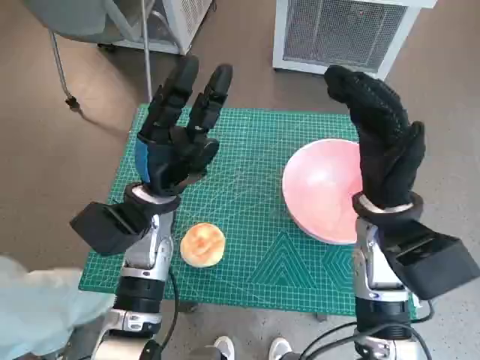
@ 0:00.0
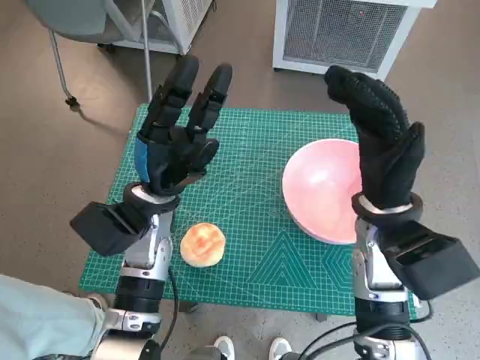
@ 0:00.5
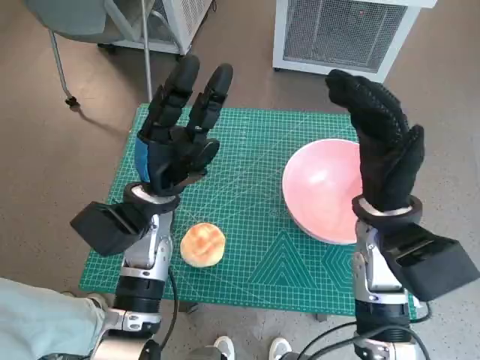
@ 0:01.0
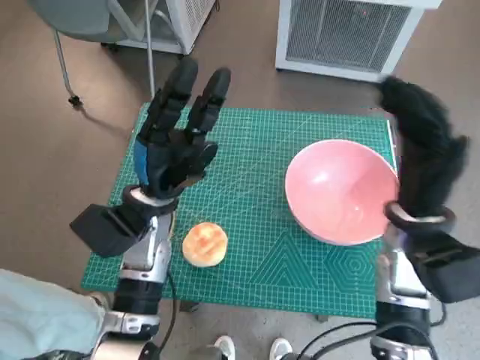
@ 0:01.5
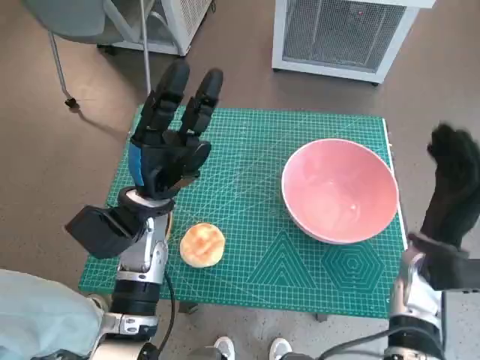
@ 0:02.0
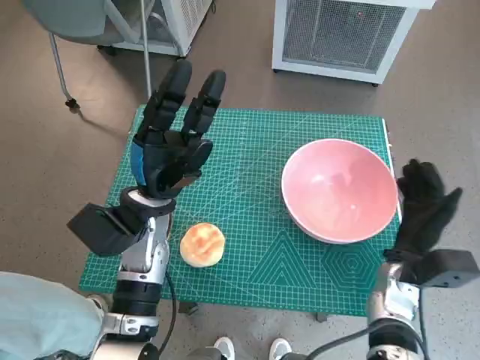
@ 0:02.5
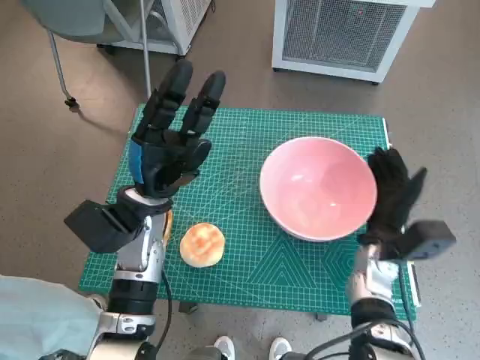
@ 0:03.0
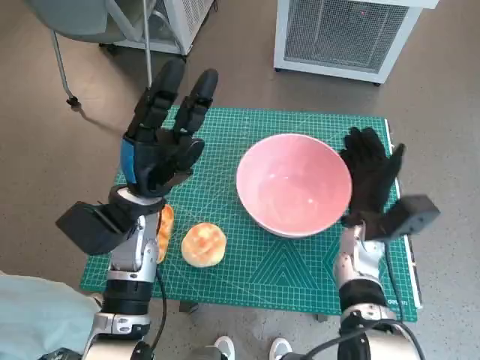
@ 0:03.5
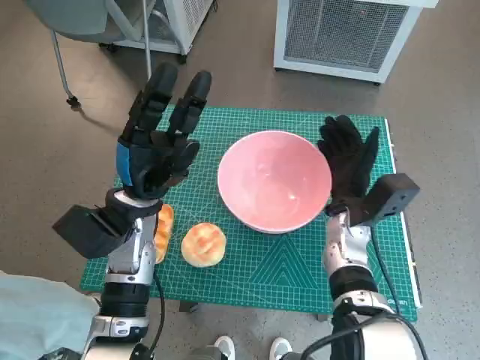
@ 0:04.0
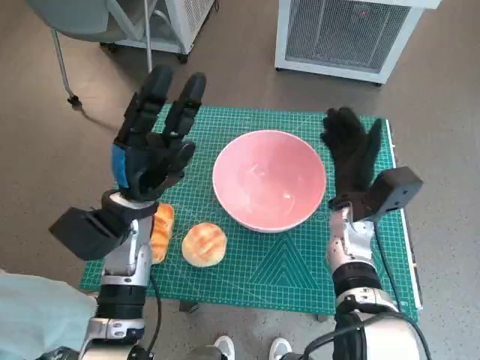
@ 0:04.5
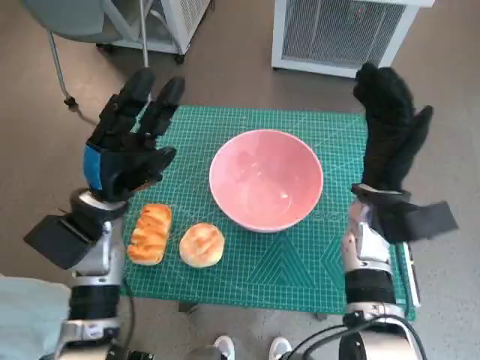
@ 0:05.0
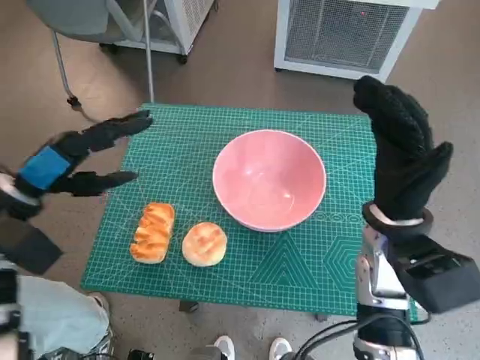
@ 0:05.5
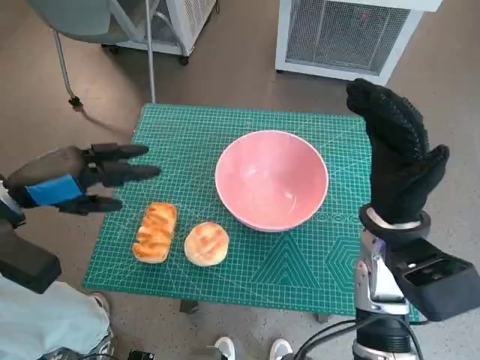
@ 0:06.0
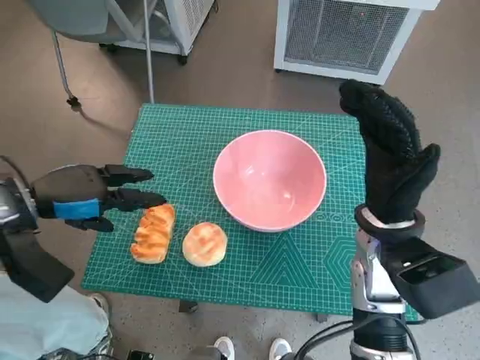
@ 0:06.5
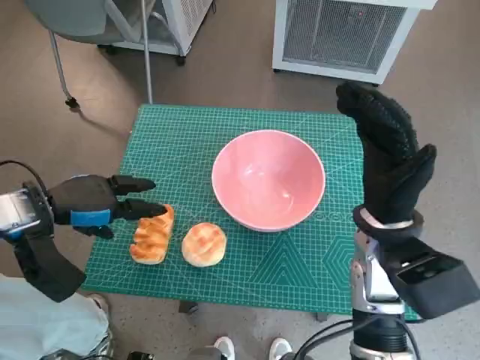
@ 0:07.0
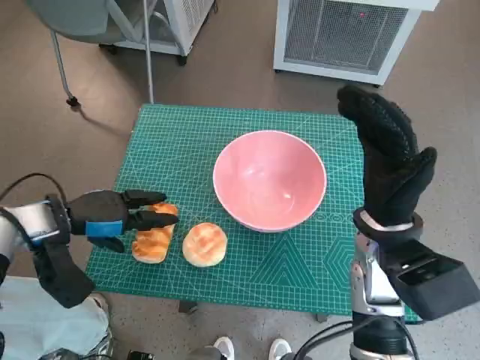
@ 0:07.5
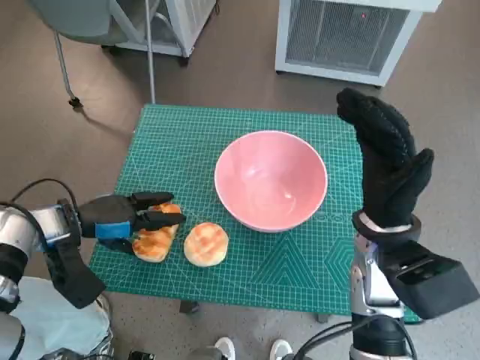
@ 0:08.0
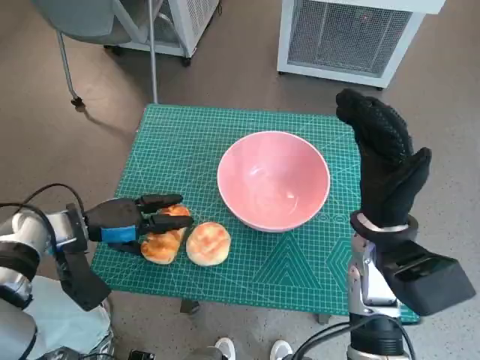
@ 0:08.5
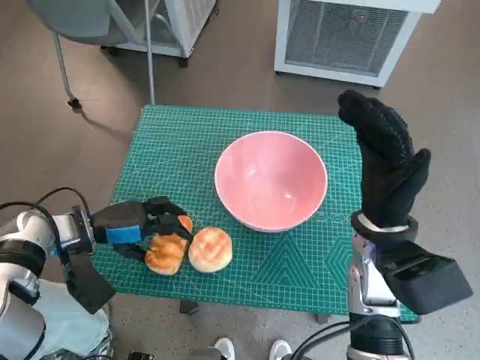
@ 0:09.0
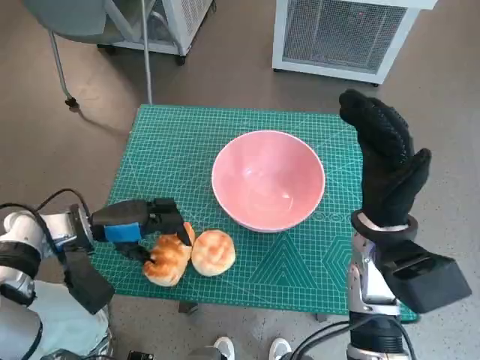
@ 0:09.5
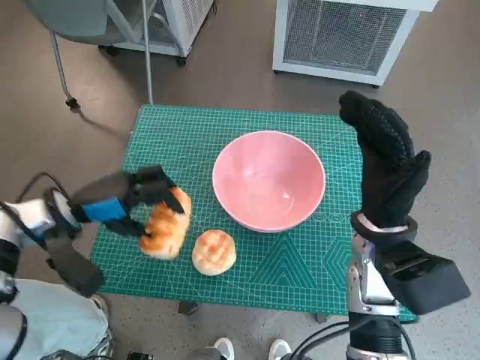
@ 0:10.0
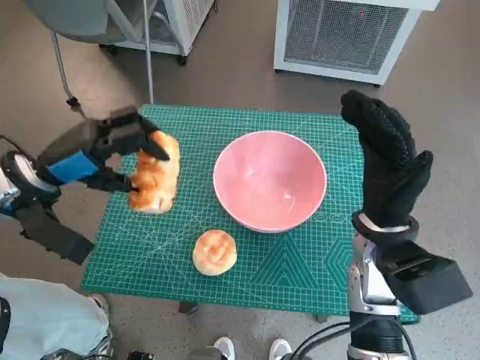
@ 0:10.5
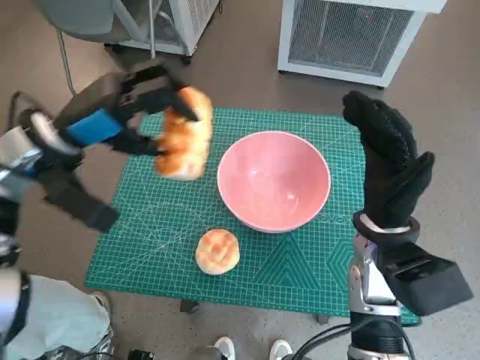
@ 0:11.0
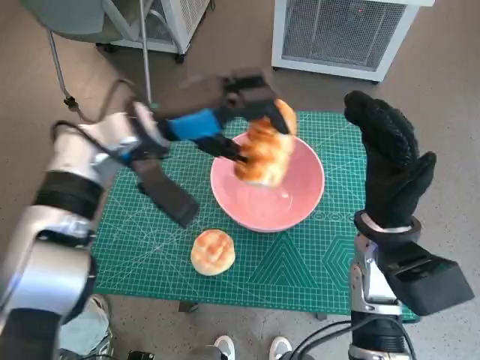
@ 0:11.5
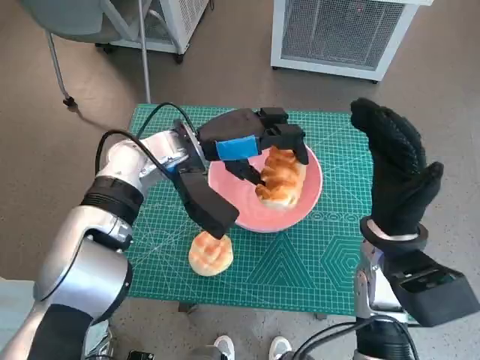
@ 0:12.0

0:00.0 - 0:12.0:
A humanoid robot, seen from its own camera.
Task of the whole recording: Push the bowl to the center of the table and put the bread into the bowl.
Step, 0:00.0 - 0:04.5: Move the pink bowl to the center of table with right hand.
Step, 0:05.0 - 0:08.0: Grasp the long bread with left hand.
0:02.0 - 0:04.0: The right hand goes some 10 cm to the left and forward.
0:04.0 - 0:06.0: The right hand goes some 10 cm upward and backward, while the left hand moves to the left and upward, some 15 cm.
0:06.0 - 0:08.0: The left hand goes about 10 cm downward.
0:10.0 - 0:12.0: The left hand heads to the right and forward, covering roughly 20 cm.

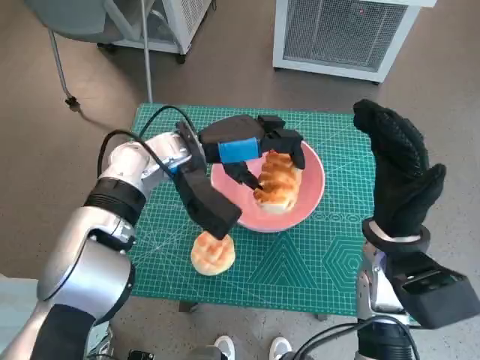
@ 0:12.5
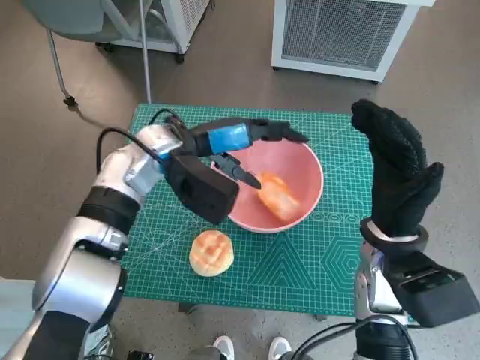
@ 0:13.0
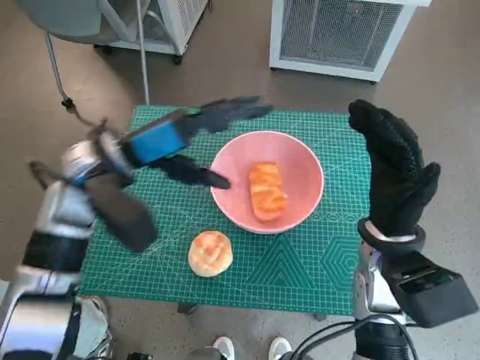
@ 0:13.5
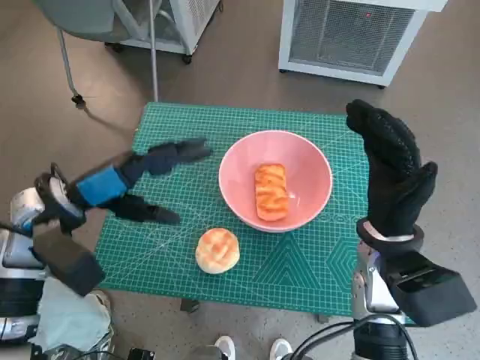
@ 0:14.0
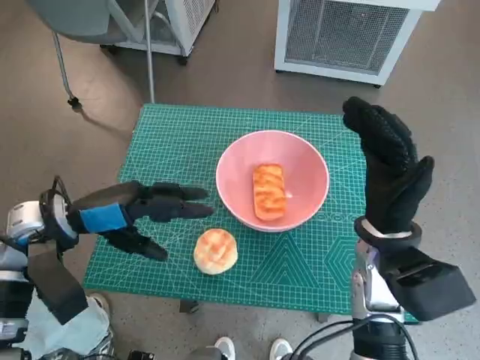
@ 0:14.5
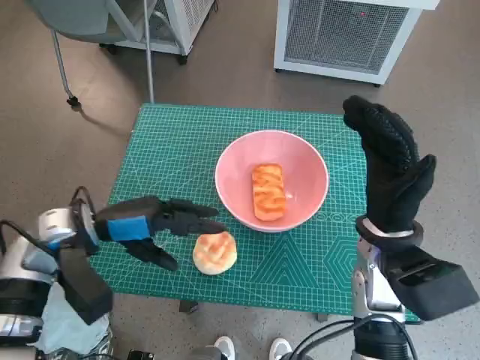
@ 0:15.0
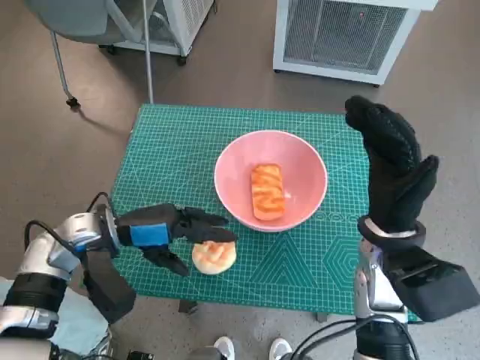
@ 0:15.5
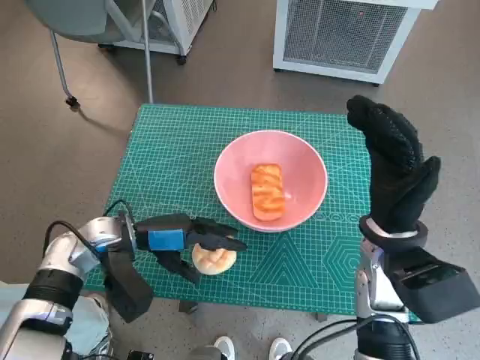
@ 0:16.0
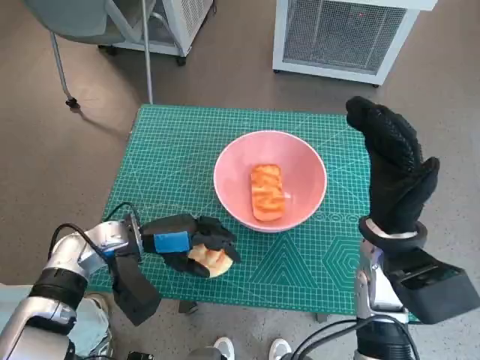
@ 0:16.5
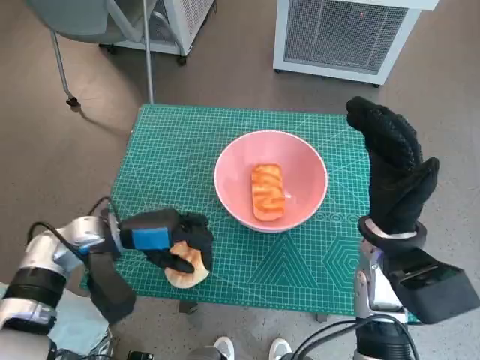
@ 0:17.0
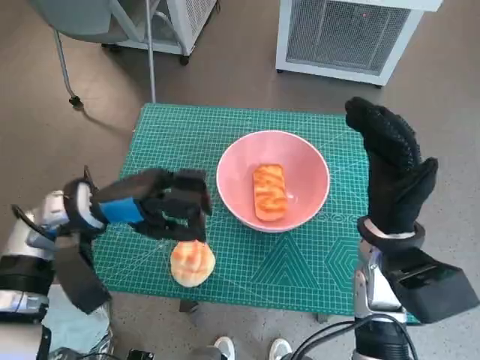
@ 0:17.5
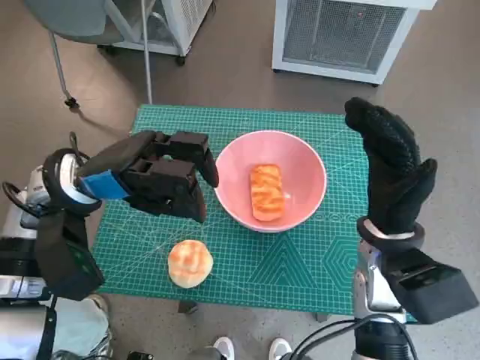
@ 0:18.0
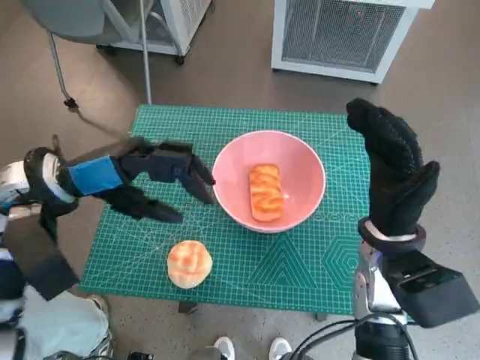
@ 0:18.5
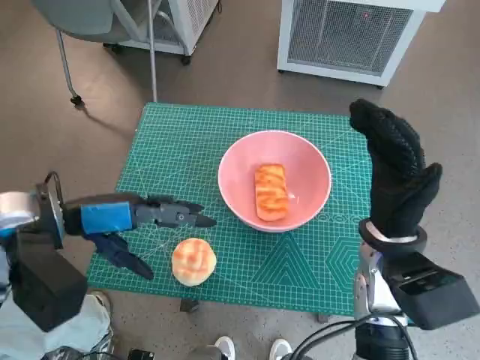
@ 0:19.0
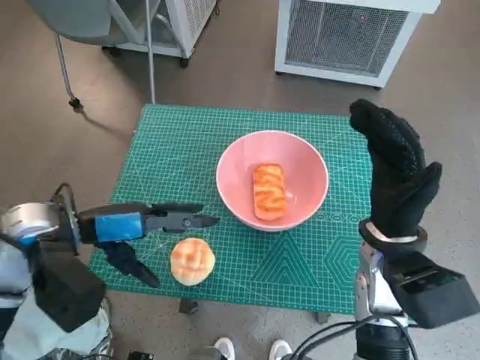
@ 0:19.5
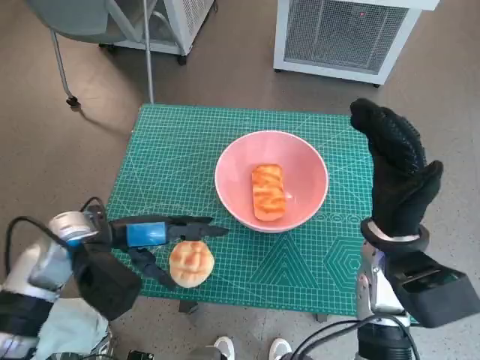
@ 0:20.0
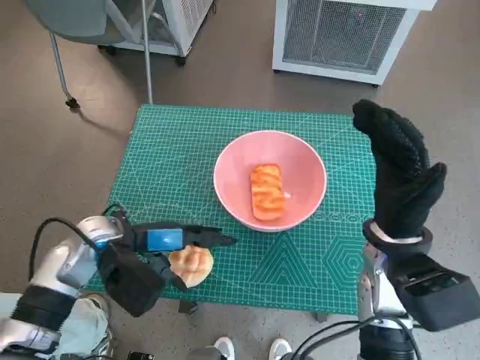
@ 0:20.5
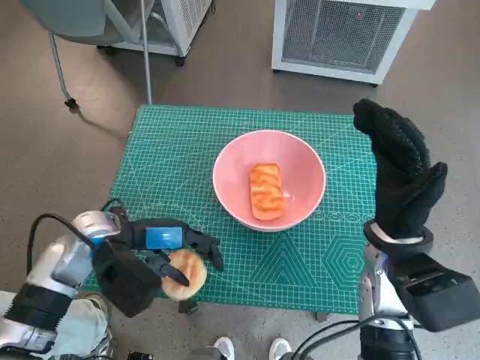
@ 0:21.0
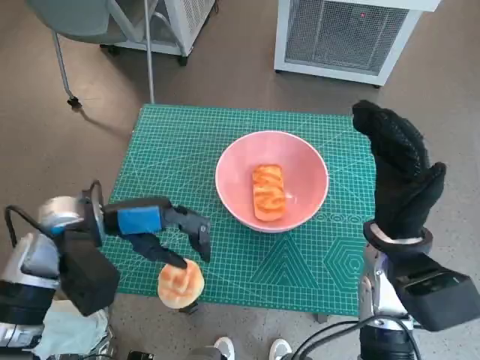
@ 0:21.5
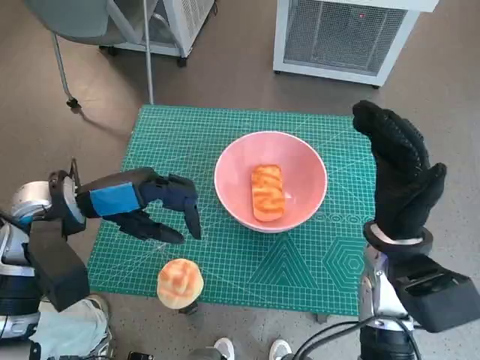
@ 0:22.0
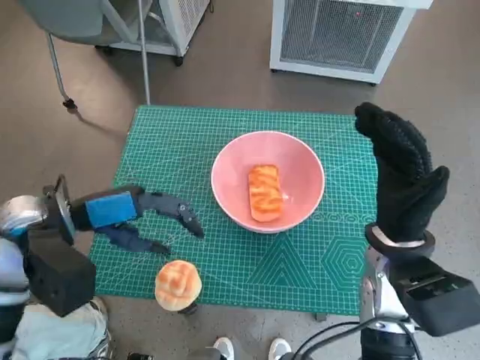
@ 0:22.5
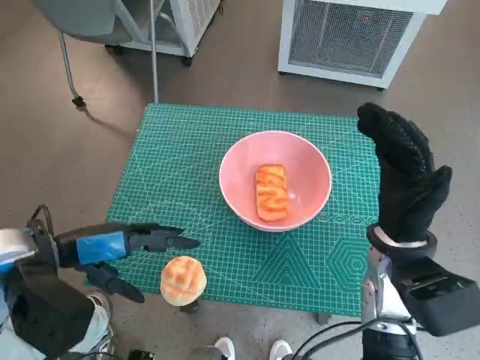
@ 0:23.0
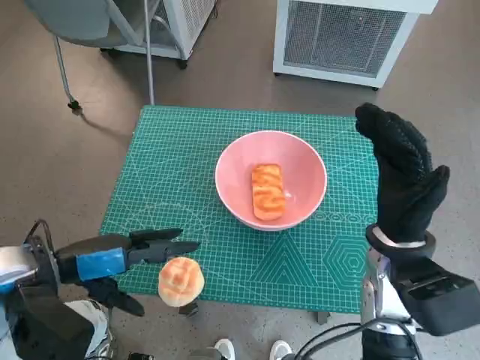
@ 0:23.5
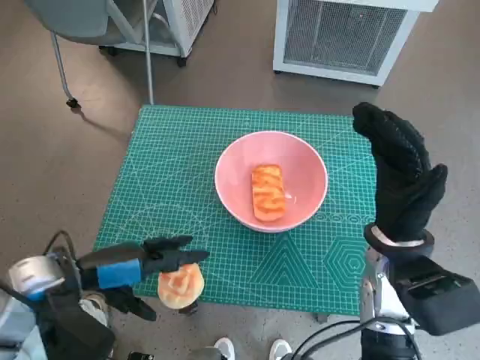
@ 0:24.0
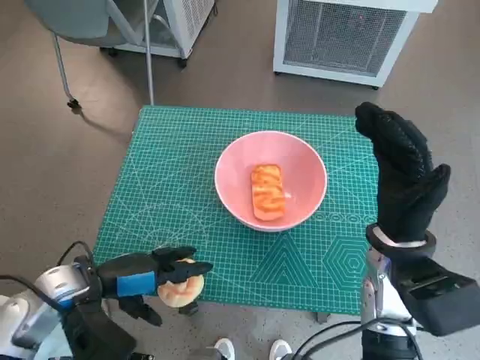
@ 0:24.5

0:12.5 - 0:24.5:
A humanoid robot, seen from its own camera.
Task of the whole recording: Push the bowl to the center of the table and put the bread into the bowl.
0:12.5 - 0:14.5: The left hand is displaced to the left and backward by some 20 cm.
0:14.5 - 0:16.5: The left hand goes approximately 10 cm downward and to the right.
0:16.5 - 0:18.5: The left hand shifts about 15 cm upward.
0:18.5 - 0:20.5: The left hand heads downward, covering some 10 cm.
0:20.5 - 0:22.5: The left hand shifts about 10 cm upward.
0:22.5 - 0:24.5: The left hand travels downward and backward by some 10 cm.

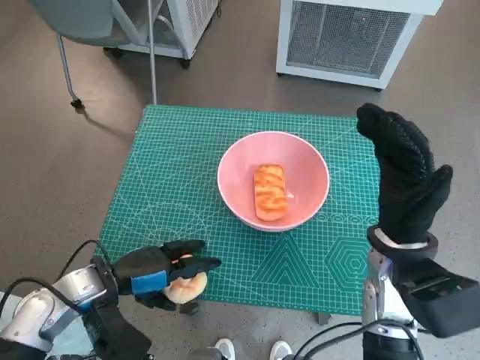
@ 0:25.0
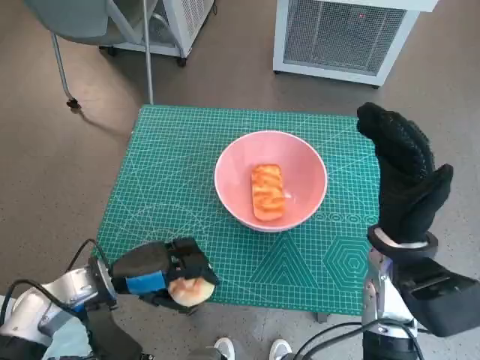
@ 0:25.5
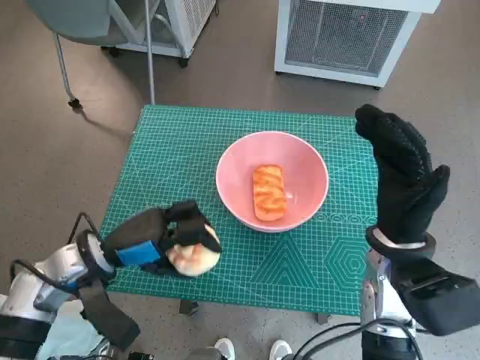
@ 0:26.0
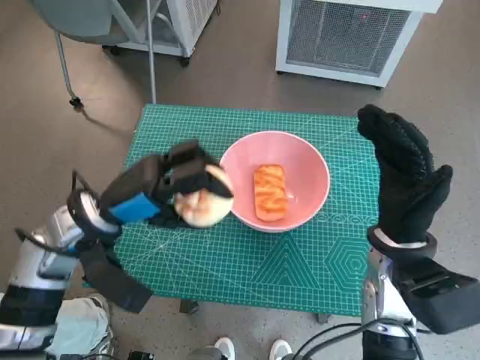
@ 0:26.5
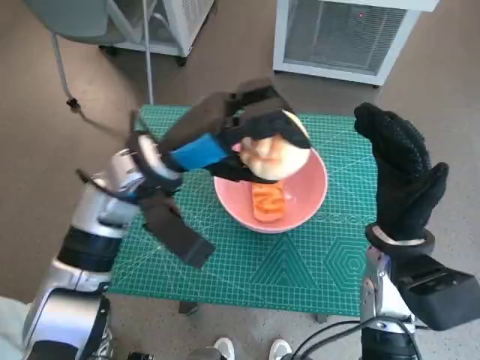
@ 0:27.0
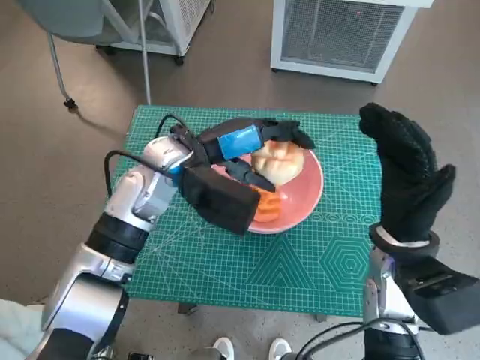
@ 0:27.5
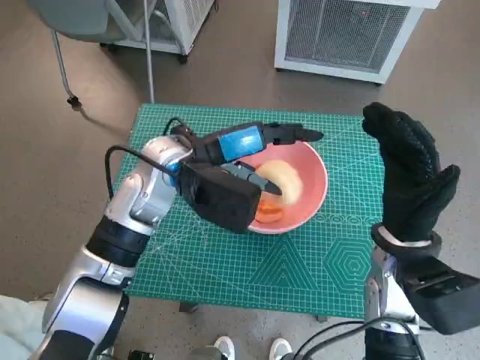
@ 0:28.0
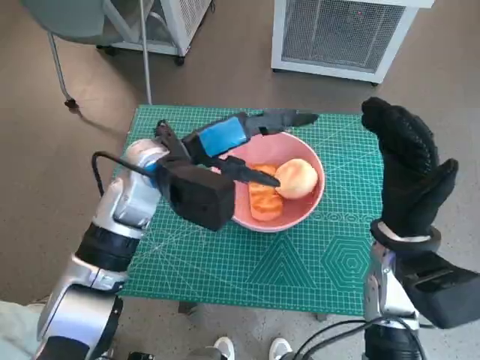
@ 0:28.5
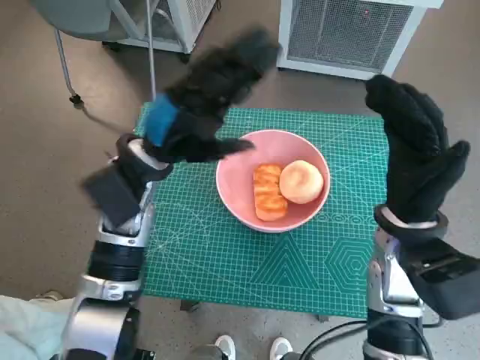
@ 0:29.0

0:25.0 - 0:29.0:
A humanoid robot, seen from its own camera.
Task of the whole recording: Push the bowl to the center of the table and put the bread into the bowl.
Step, 0:25.5 - 0:28.0: Place the round bread in pink bowl with left hand.
0:25.0 - 0:27.0: The left hand heads upward, forward and to the right, covering roughly 20 cm.
